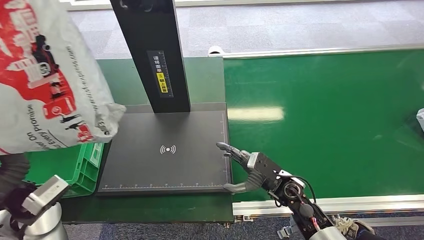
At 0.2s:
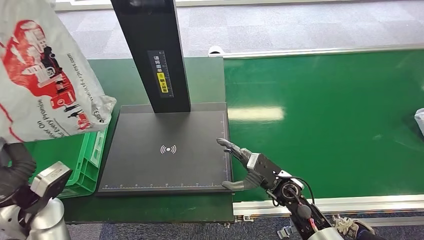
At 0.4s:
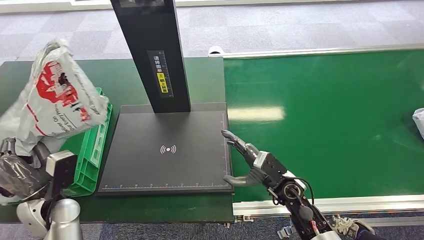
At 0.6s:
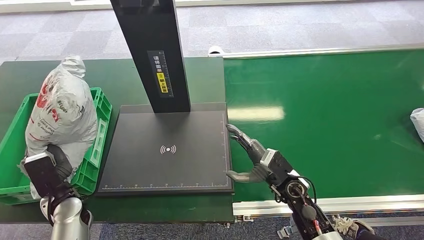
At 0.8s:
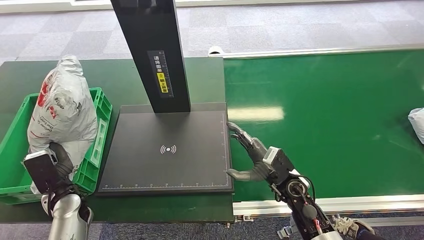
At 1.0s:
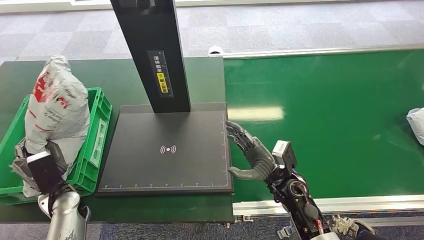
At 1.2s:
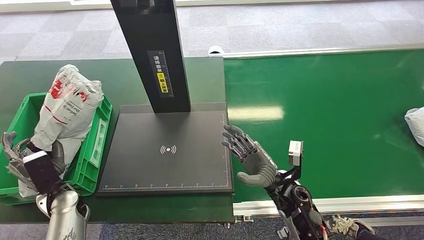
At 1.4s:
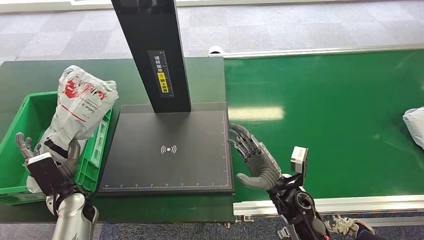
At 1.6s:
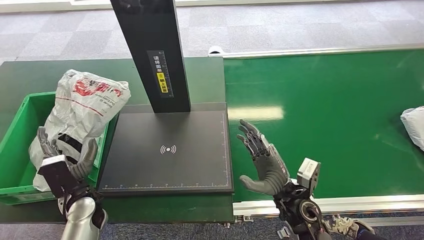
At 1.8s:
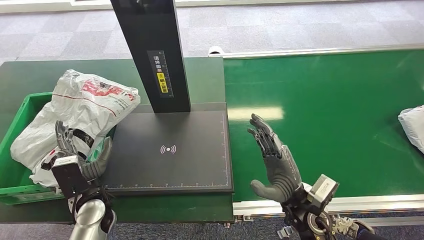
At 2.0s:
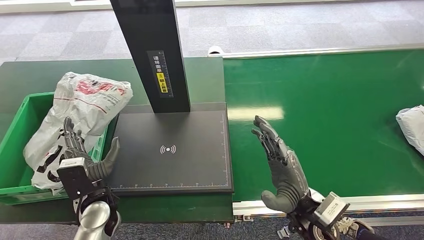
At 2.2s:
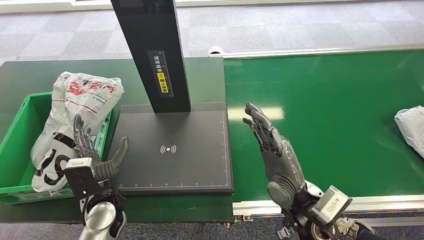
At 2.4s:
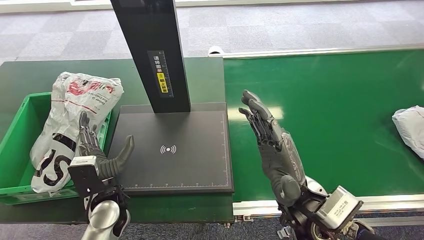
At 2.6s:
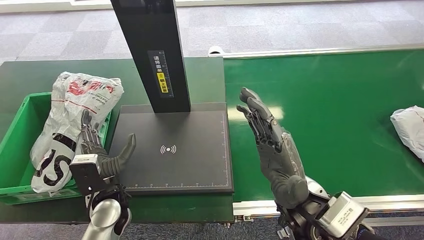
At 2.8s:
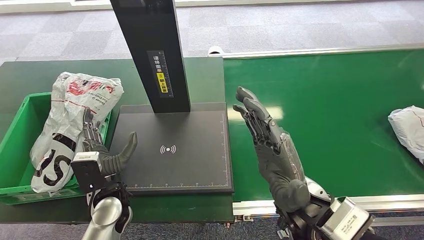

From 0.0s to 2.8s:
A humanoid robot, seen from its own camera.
Step, from 0.0s to 2.8s: Place the package into the parcel locker.
From 1.4s to 2.8s: The left hand moves to the right and upward, roughly 15 cm, while the right hand travels upward by roughly 15 cm.
